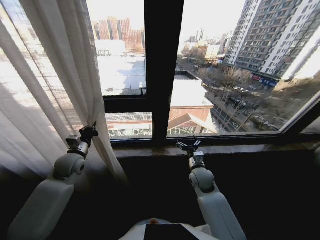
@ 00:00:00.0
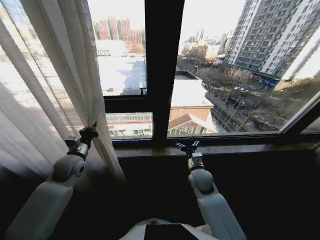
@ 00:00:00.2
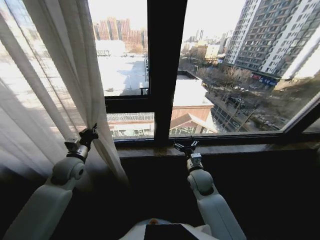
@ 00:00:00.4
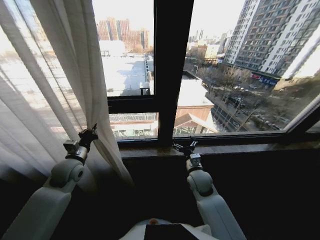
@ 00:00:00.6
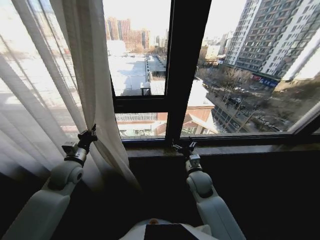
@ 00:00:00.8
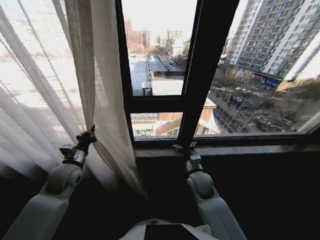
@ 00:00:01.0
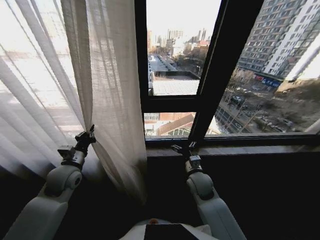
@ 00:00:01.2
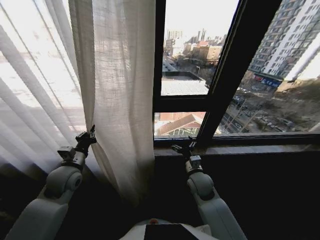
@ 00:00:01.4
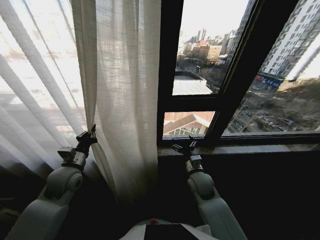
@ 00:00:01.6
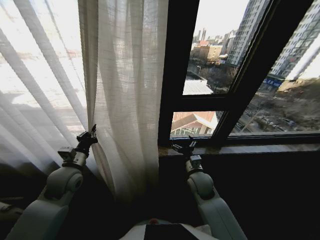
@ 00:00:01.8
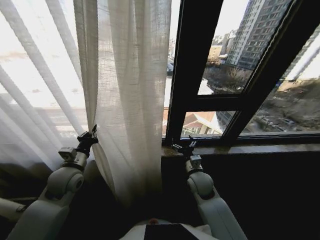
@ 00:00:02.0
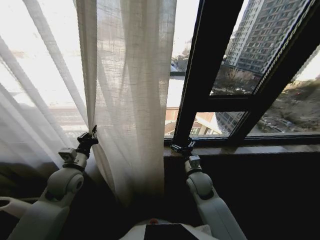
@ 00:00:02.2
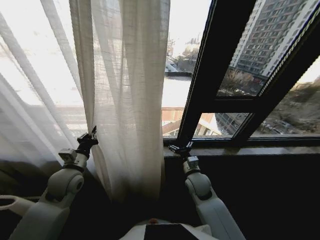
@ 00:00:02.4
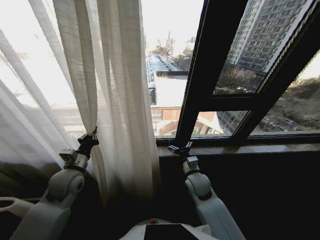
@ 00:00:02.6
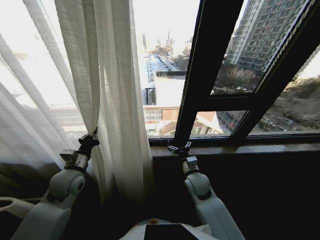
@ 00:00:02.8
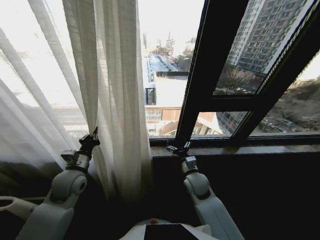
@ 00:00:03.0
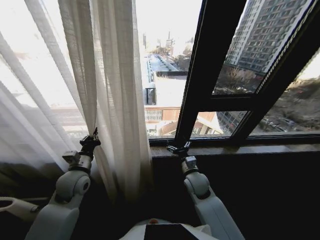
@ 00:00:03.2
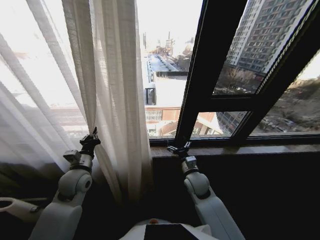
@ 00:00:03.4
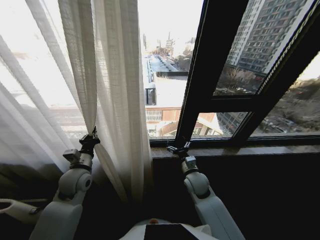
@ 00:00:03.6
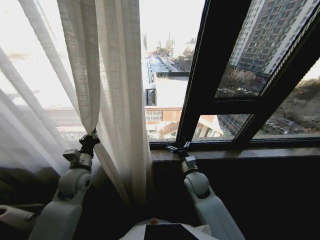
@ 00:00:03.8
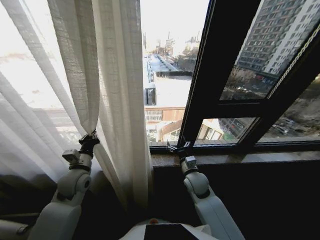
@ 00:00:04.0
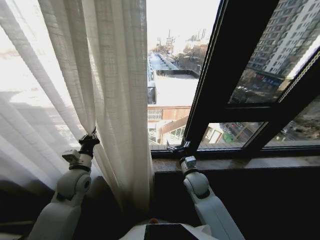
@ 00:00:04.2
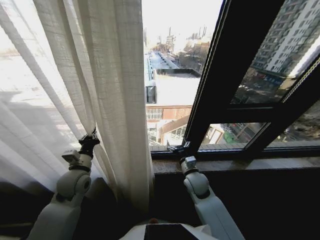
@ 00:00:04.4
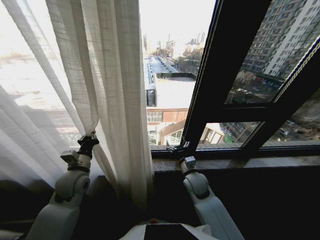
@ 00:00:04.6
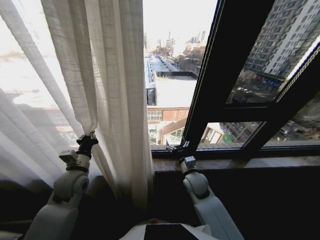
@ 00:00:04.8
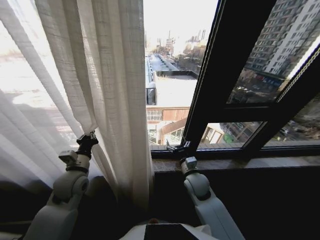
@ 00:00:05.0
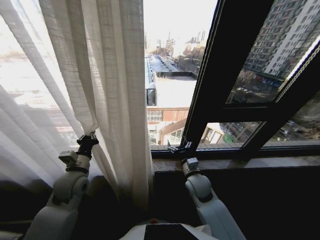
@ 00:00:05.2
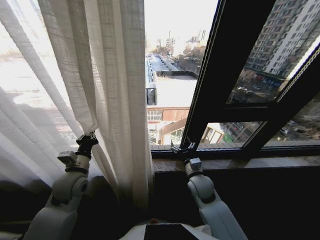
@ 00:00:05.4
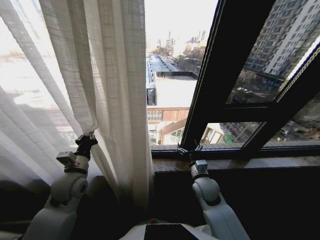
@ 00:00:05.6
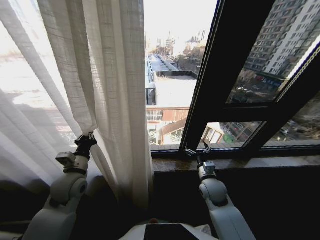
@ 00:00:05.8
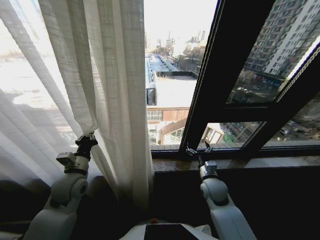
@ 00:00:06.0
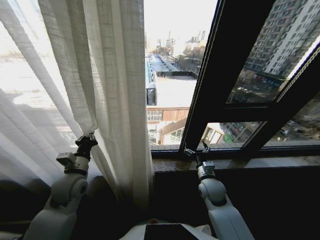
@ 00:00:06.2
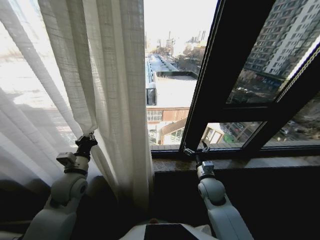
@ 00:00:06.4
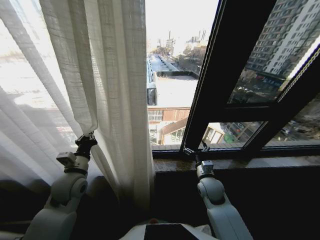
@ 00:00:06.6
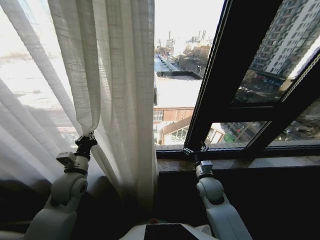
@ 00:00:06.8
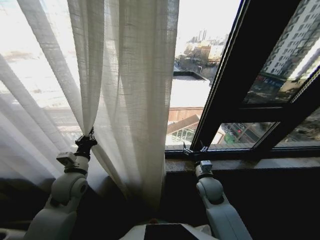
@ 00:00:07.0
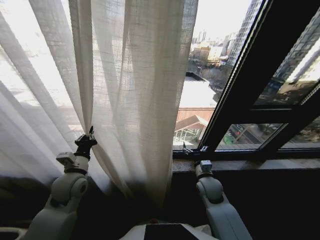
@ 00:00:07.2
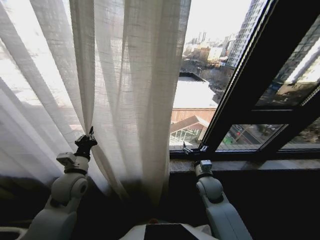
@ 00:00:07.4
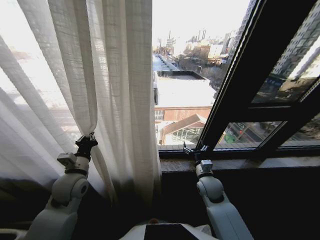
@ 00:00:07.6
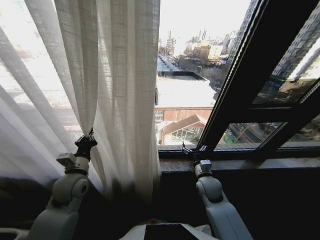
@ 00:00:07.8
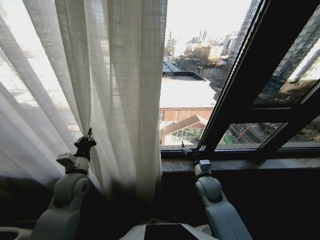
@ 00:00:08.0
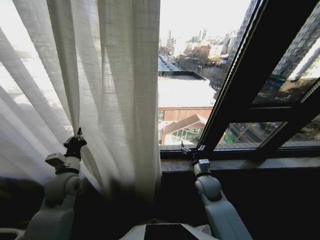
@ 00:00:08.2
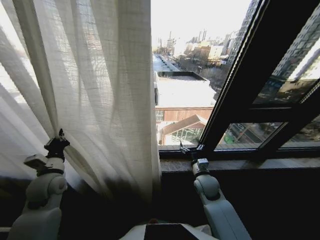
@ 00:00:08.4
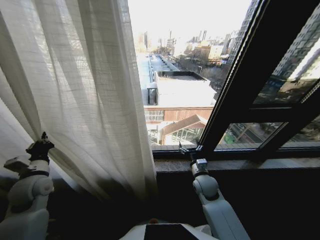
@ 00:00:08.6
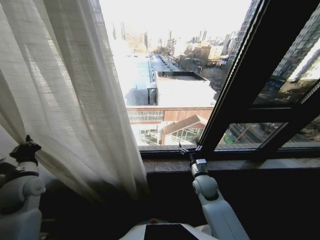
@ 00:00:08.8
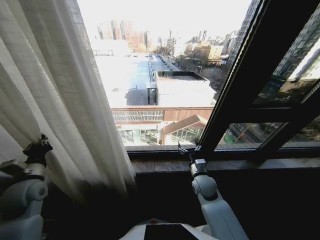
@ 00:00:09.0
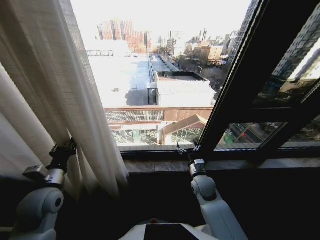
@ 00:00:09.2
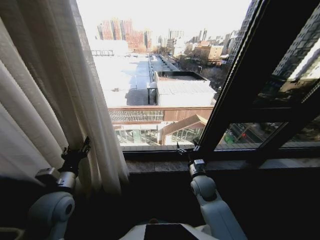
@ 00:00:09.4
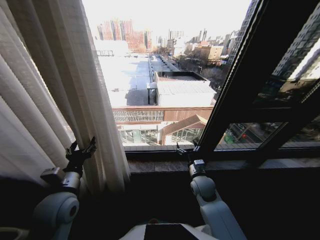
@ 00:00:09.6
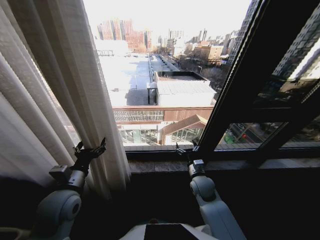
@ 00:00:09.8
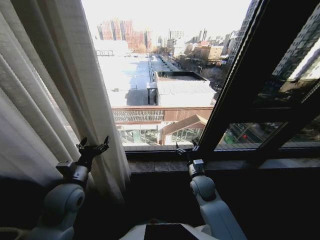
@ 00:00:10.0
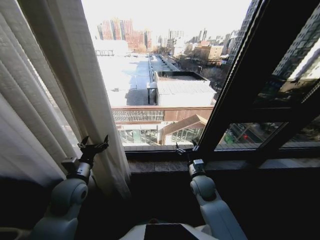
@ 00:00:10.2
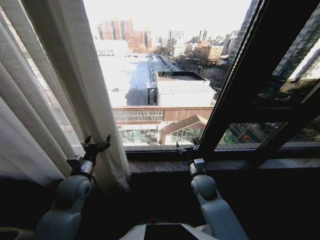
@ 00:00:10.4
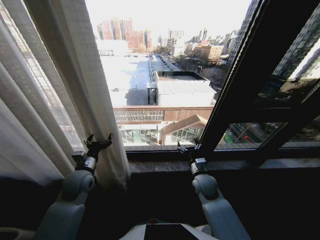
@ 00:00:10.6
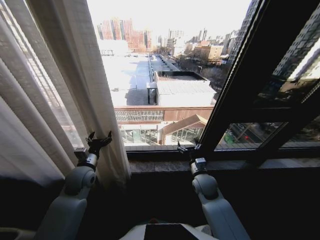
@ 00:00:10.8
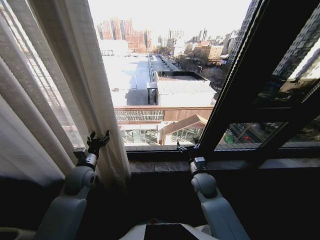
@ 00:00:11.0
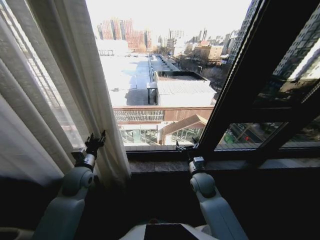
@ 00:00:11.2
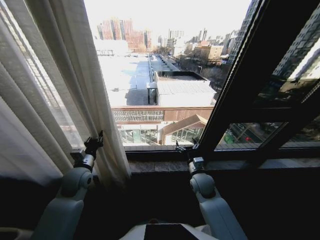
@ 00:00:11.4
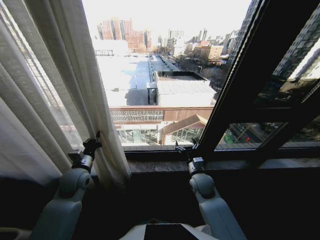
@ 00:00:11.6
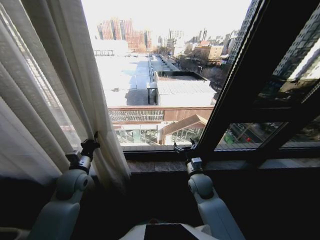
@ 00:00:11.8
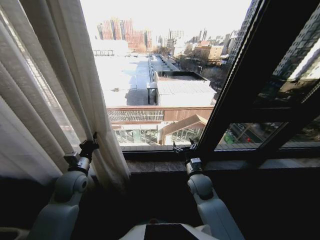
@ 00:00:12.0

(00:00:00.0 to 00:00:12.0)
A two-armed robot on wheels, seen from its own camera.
Task of the whole recording: Open the curtains by pulling them apart, changing their state from closed to fully open.
00:00:00.0 - 00:00:01.6: The left gripper goes roughly 5 cm backward.
00:00:04.4 - 00:00:06.0: The right gripper moves to the right, about 5 cm.
00:00:07.6 - 00:00:09.0: The left gripper is displaced to the left by approximately 15 cm.
00:00:09.0 - 00:00:10.4: The left gripper shifts about 15 cm to the right, and opens.
00:00:10.4 - 00:00:12.0: The left gripper closes up.

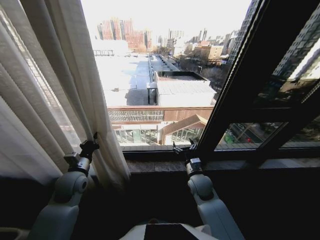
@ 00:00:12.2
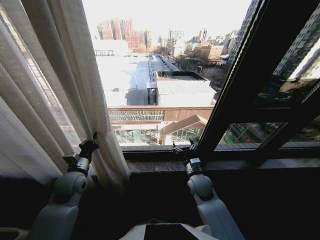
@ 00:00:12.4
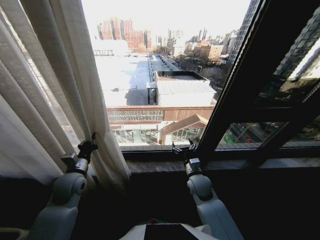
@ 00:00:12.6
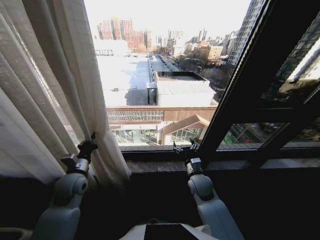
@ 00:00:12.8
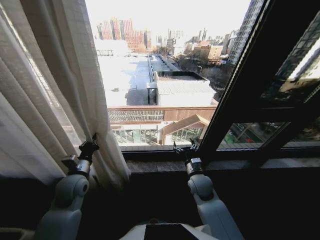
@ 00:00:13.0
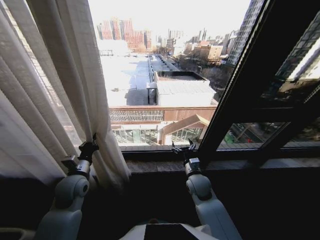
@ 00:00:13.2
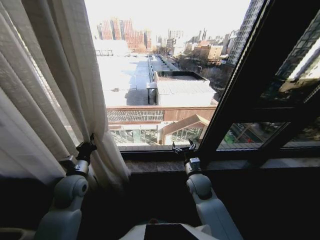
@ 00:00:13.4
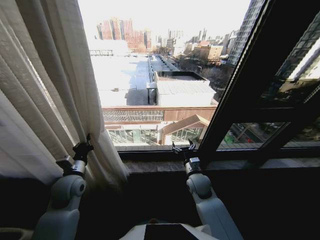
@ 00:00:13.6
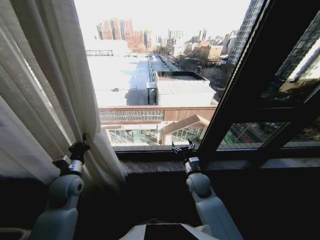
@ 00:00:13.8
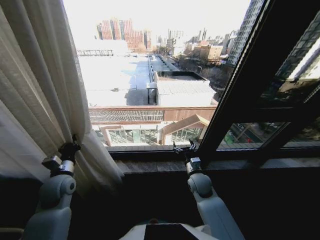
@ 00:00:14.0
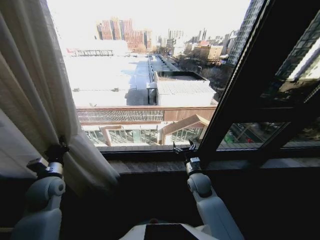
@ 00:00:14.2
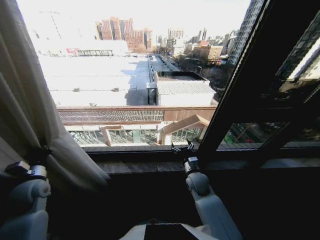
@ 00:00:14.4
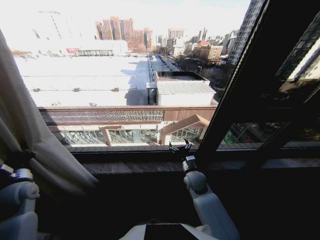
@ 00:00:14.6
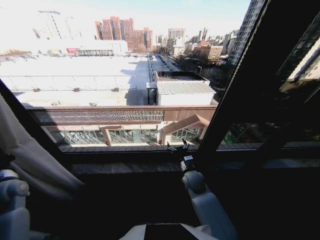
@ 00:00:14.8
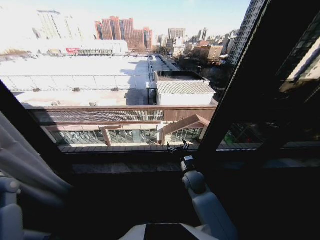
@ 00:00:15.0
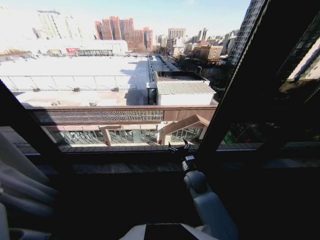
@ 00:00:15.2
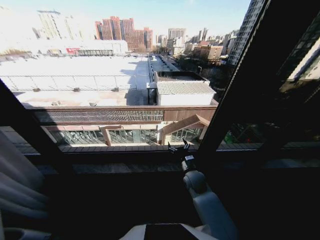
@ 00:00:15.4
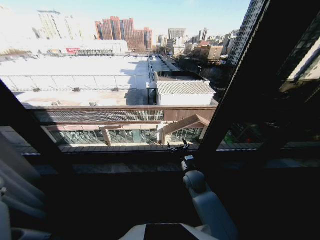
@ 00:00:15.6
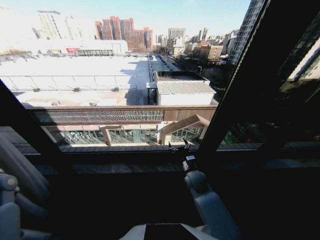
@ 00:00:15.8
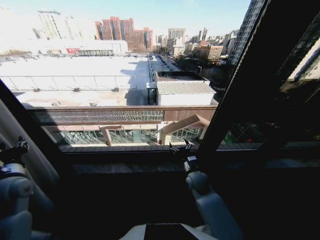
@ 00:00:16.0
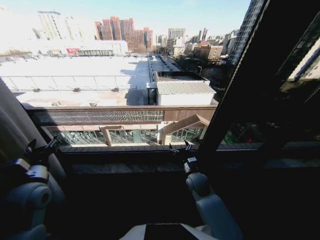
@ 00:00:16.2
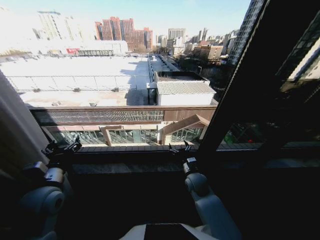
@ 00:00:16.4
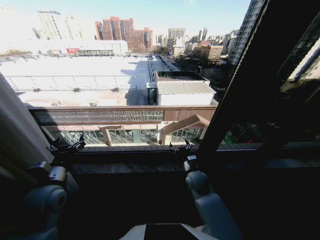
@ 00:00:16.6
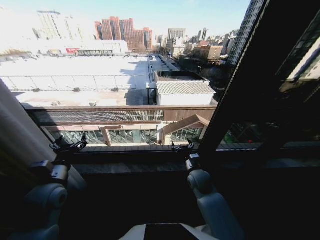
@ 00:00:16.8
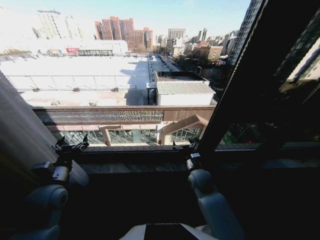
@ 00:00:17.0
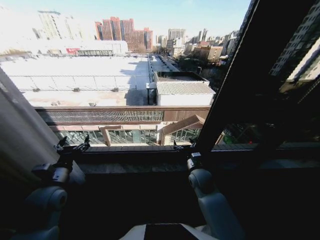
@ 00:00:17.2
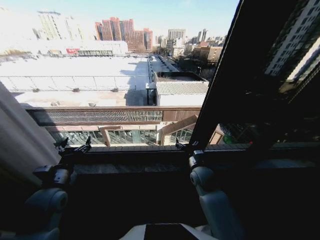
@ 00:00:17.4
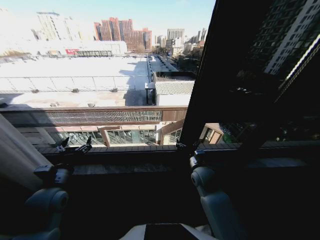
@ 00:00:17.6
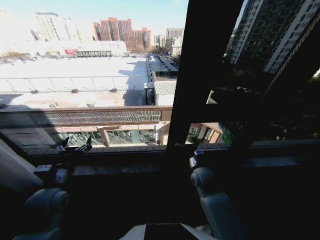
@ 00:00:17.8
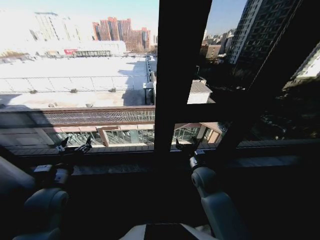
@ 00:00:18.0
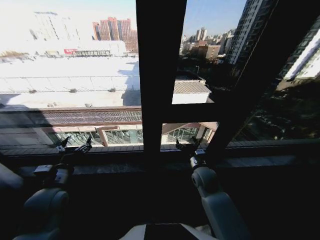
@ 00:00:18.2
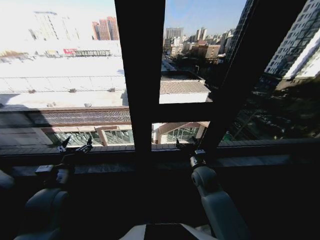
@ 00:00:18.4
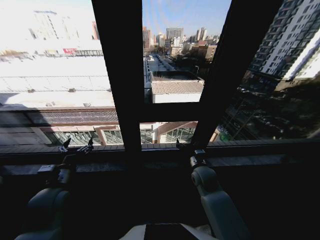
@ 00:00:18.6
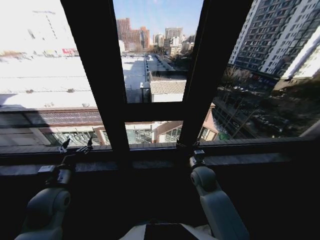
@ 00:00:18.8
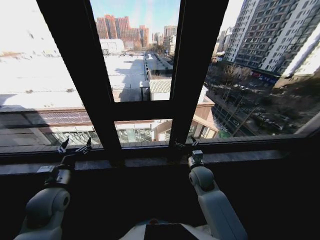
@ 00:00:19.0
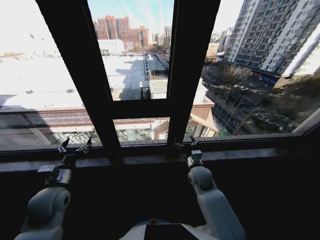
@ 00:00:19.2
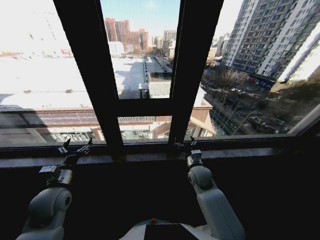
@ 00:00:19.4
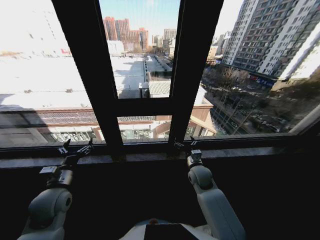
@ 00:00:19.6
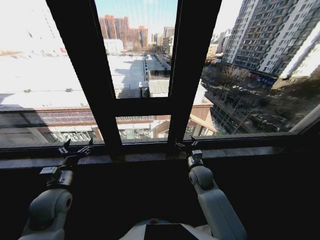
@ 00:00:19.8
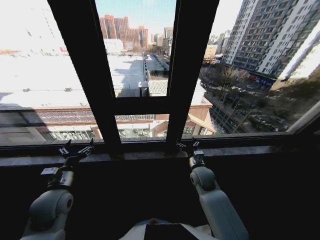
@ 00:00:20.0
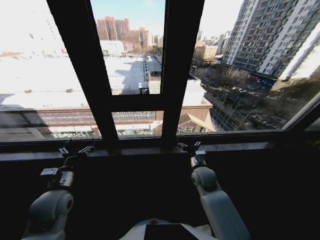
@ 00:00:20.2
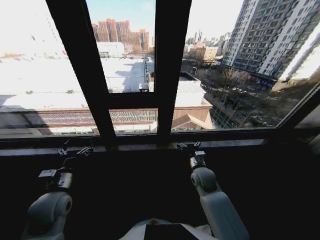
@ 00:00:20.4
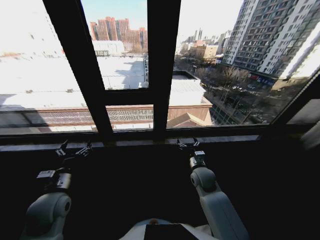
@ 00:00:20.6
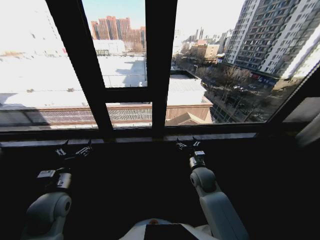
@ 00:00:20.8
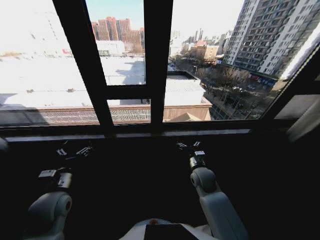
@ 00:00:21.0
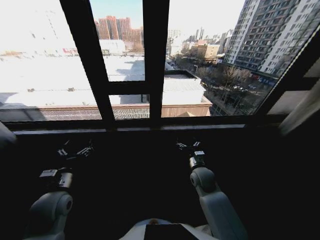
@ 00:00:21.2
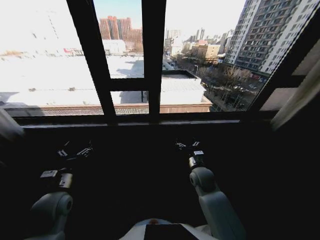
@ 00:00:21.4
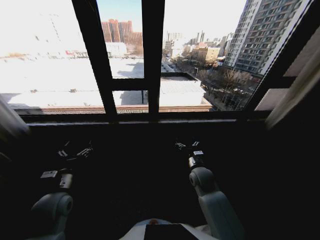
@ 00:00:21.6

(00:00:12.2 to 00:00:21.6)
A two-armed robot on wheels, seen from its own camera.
Task of the whole recording: Open the curtains by pulling them apart, changing their state from closed to fully open.
00:00:12.2 - 00:00:13.8: There are only small adjustments of the grippers.
00:00:13.8 - 00:00:15.4: The left gripper shifts about 30 cm to the left.
00:00:15.4 - 00:00:17.0: The left gripper goes some 25 cm to the right, and opens up.
